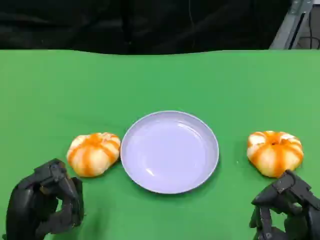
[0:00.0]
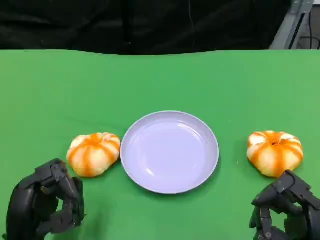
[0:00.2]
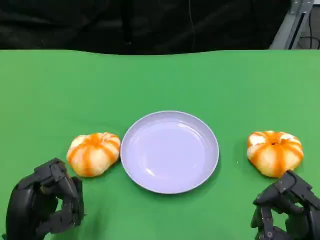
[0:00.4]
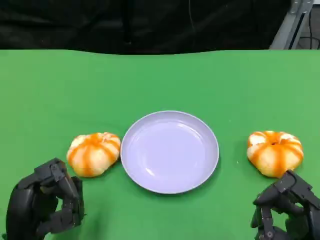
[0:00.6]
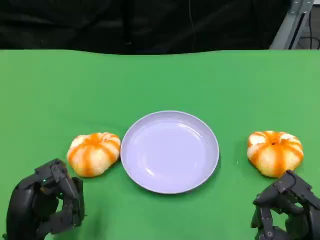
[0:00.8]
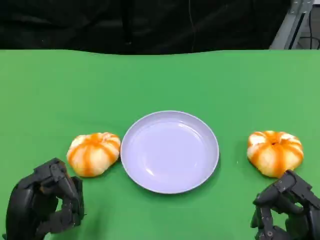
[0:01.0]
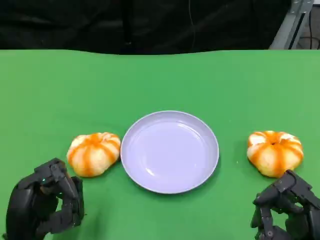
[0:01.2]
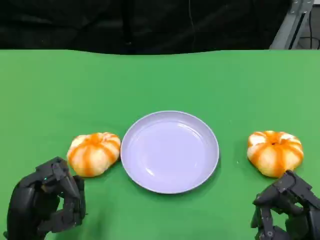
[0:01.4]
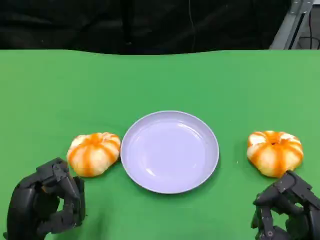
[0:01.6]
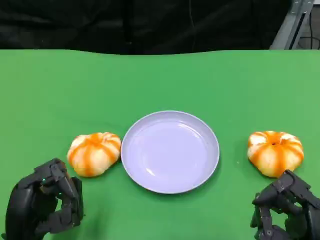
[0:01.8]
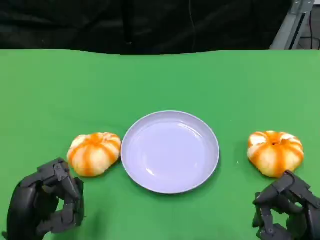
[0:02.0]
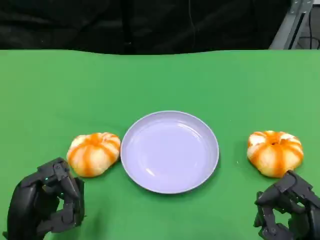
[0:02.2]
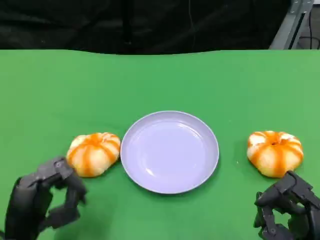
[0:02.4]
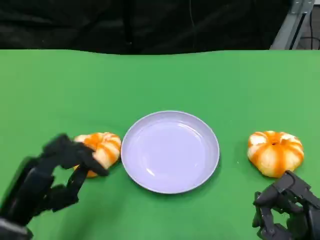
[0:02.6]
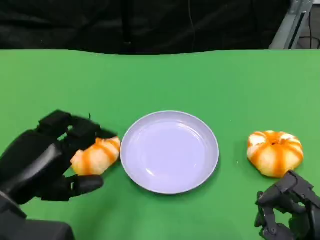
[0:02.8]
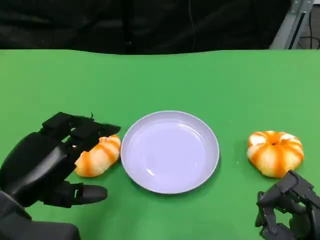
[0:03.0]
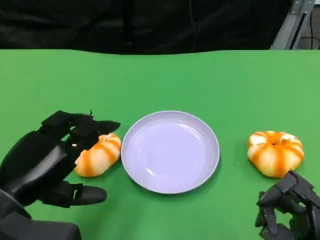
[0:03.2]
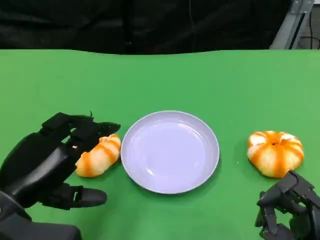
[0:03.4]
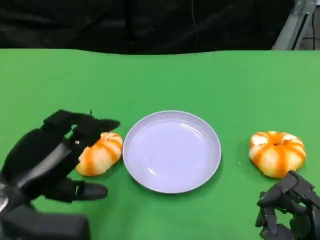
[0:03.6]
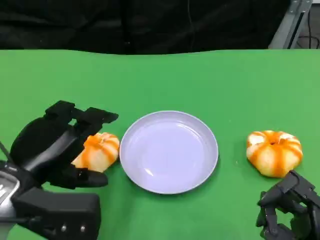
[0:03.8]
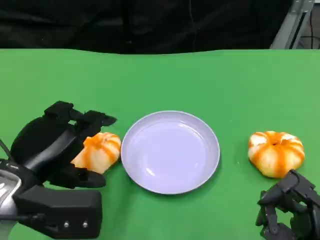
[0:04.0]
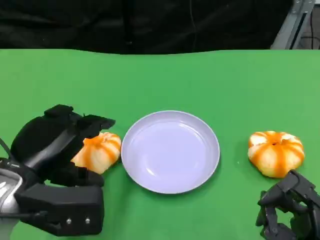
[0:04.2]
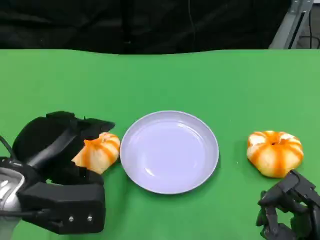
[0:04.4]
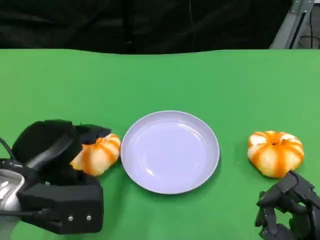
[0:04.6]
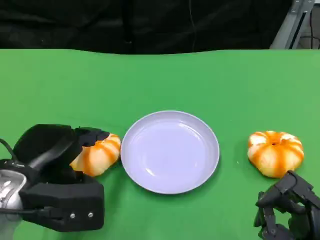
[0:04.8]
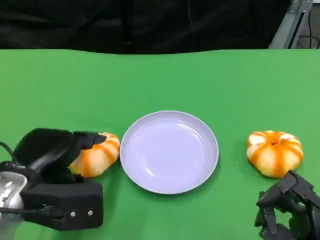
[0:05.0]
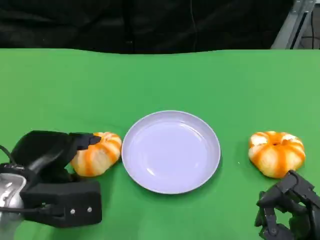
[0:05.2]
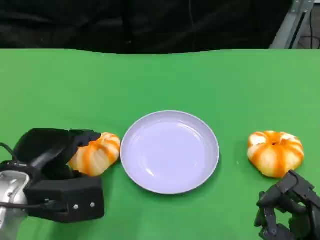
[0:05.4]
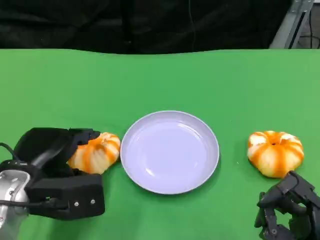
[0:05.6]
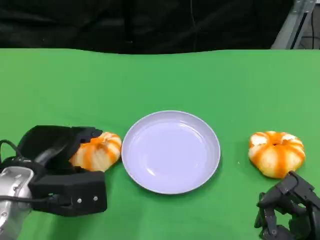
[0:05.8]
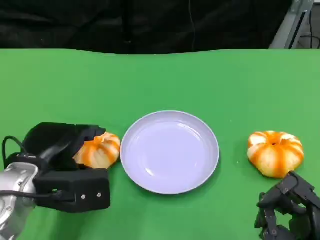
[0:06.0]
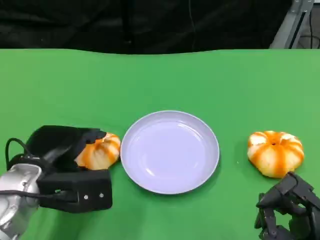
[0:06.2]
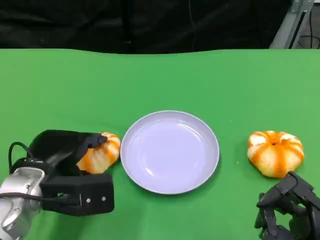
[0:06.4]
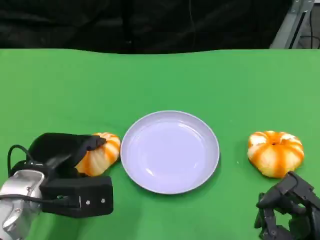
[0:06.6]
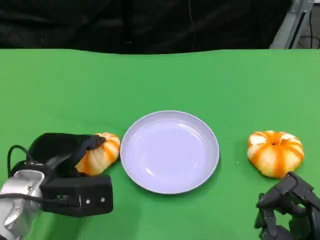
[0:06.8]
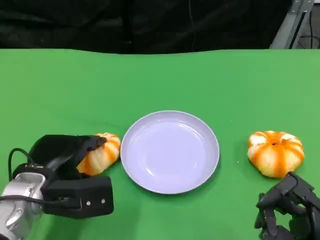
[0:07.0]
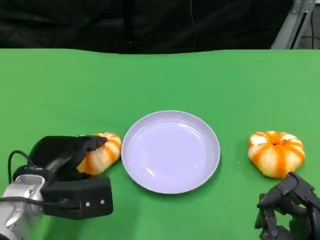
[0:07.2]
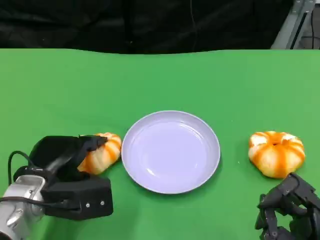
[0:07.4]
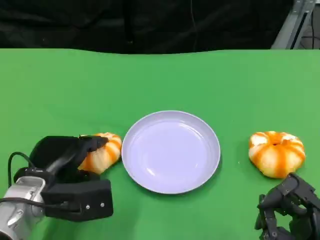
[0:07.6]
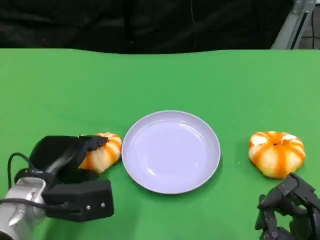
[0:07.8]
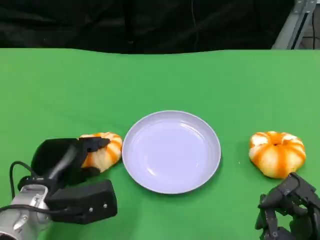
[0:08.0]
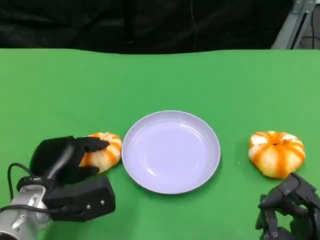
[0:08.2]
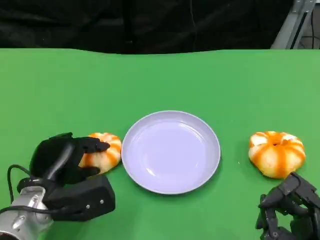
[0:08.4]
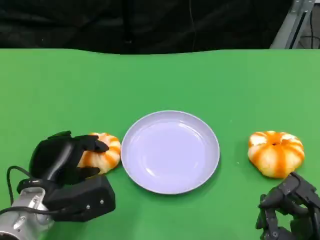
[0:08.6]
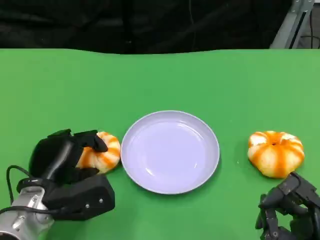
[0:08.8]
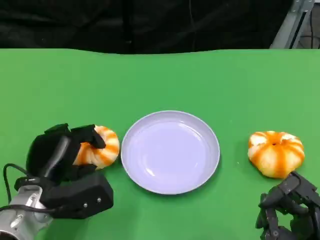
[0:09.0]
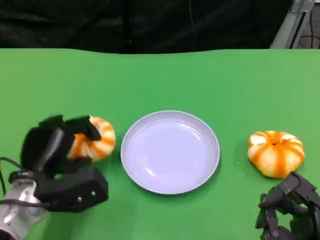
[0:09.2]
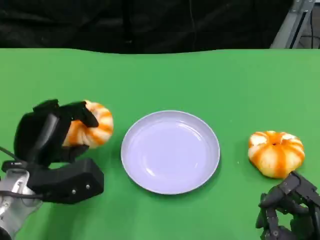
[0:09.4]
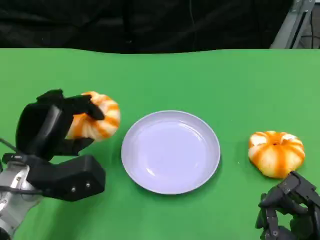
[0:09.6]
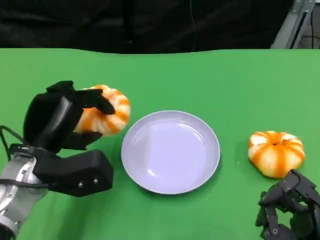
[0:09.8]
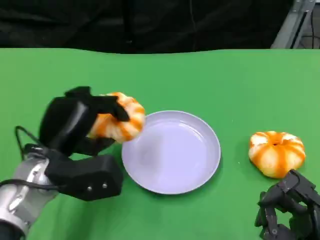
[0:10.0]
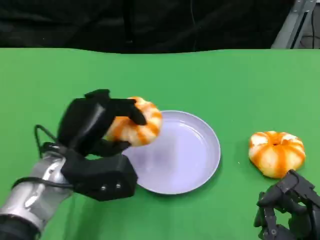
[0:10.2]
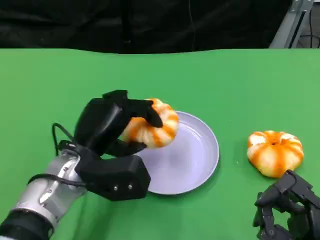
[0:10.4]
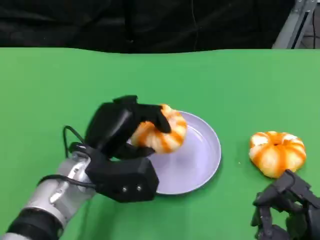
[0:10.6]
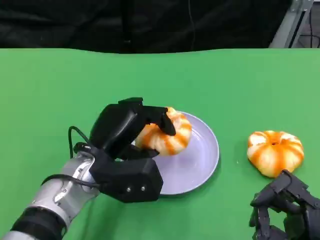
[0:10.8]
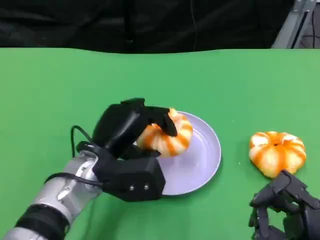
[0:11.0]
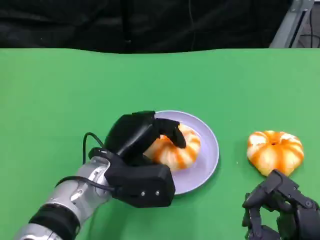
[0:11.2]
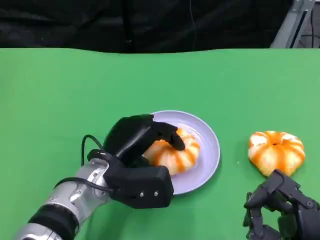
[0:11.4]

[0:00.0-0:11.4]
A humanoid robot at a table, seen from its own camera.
Task of the whole recording: Grasp the bread from the table and place it into the plate.
0:00.0 to 0:01.4: Neither hand changes place.
0:01.4 to 0:02.8: The left hand is displaced upward by roughly 10 cm.
0:02.8 to 0:04.2: The hands move only a little.
0:04.2 to 0:05.6: There are only small adjustments of the hands.
0:05.6 to 0:07.2: The hands stay close to where they were, moving slightly.
0:07.2 to 0:08.6: The hands move only a little.
0:08.6 to 0:10.0: The left hand heads upward, covering approximately 5 cm.
0:10.0 to 0:11.4: The left hand moves to the right, about 5 cm.

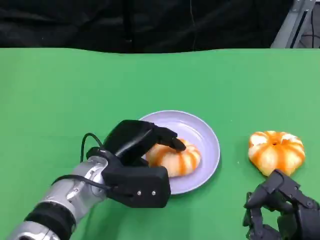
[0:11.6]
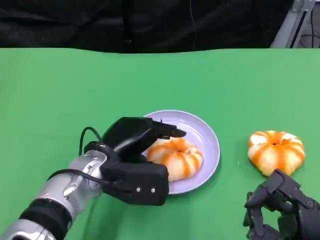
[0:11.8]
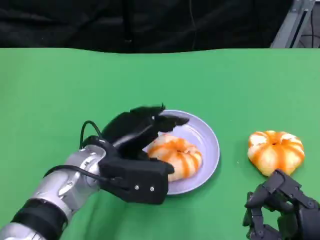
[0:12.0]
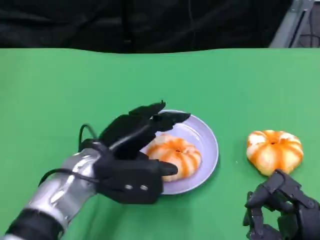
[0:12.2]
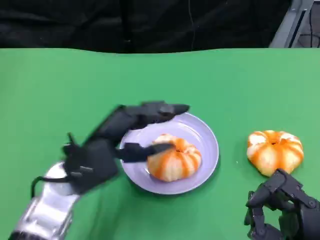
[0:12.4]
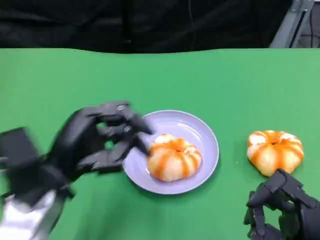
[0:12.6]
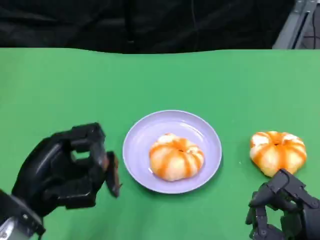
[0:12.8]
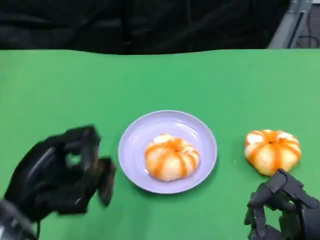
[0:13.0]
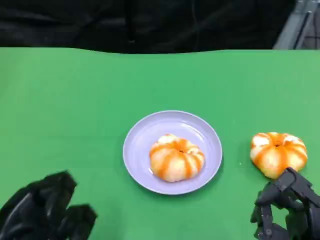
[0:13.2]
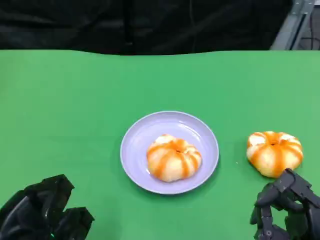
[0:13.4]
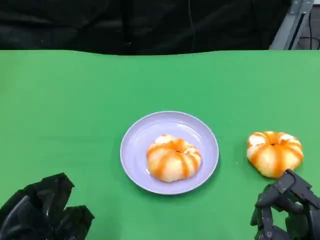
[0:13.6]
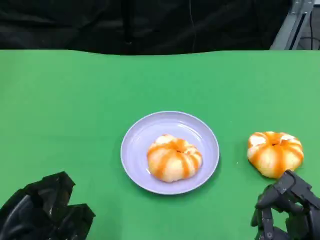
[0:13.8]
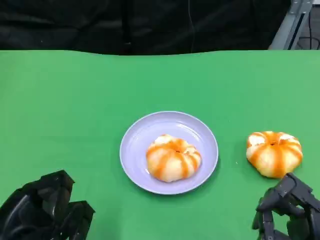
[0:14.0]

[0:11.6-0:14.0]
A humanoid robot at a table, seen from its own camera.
Task of the whole recording: Grasp the bread from the table and place it into the plate.
0:11.6 to 0:12.8: The left hand is displaced to the left and backward by some 15 cm.
0:12.8 to 0:14.0: The left hand travels downward by some 5 cm.

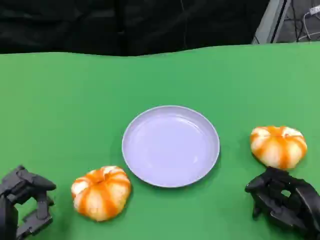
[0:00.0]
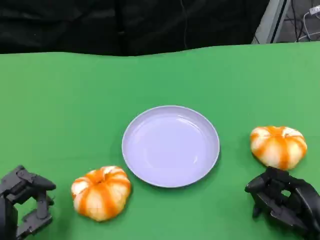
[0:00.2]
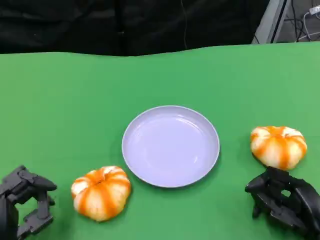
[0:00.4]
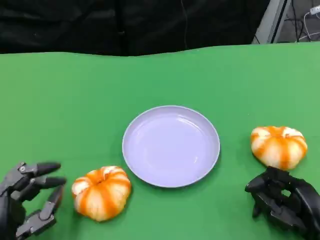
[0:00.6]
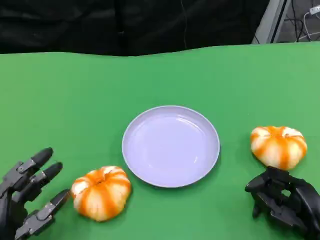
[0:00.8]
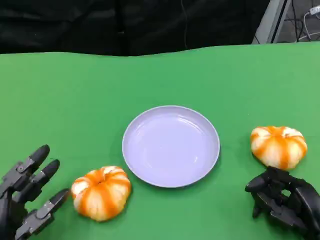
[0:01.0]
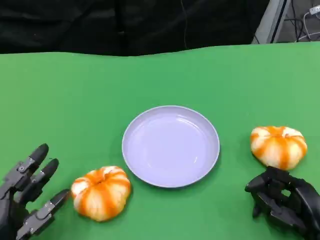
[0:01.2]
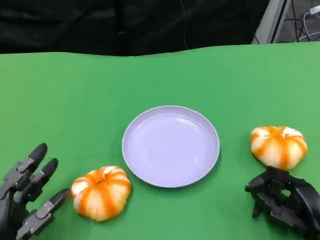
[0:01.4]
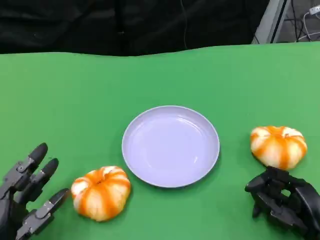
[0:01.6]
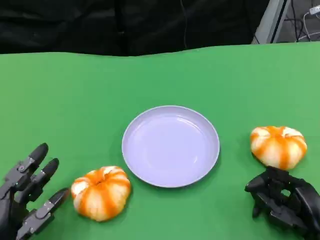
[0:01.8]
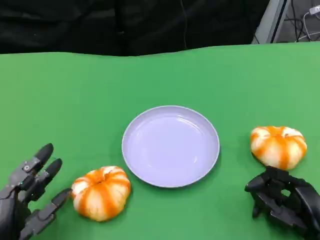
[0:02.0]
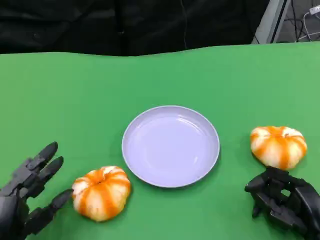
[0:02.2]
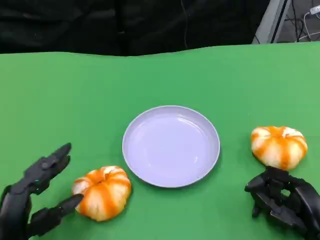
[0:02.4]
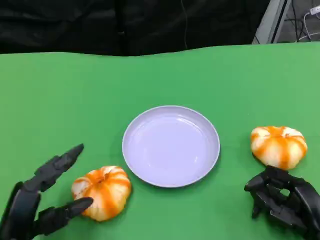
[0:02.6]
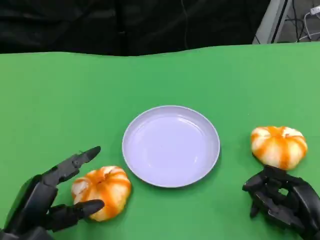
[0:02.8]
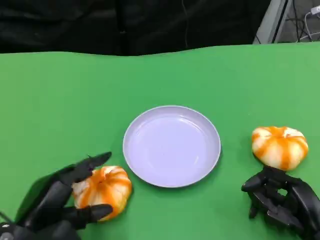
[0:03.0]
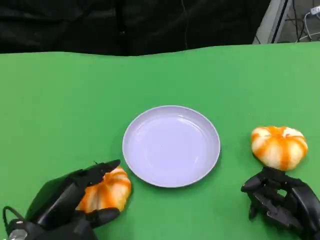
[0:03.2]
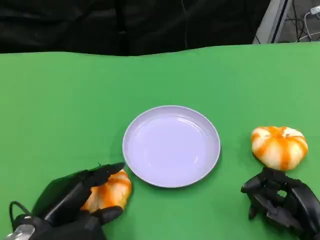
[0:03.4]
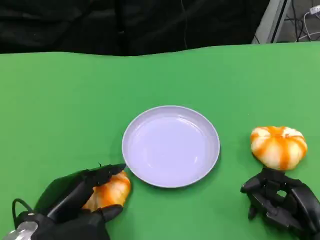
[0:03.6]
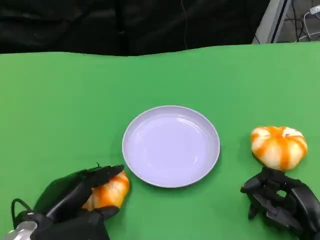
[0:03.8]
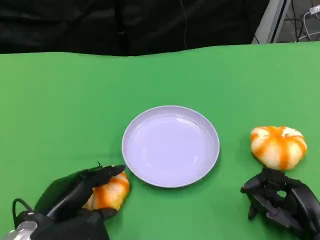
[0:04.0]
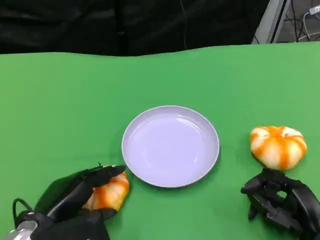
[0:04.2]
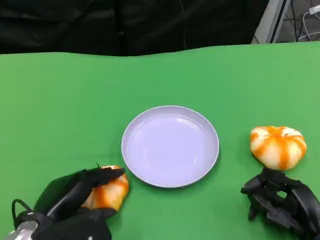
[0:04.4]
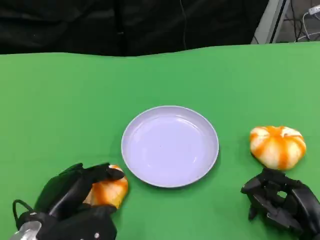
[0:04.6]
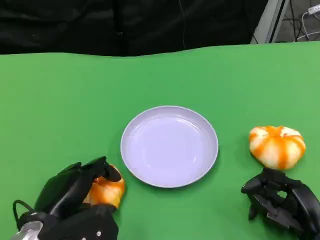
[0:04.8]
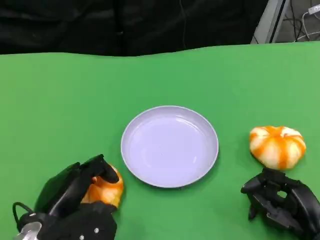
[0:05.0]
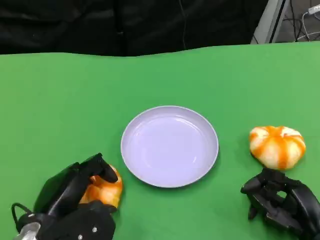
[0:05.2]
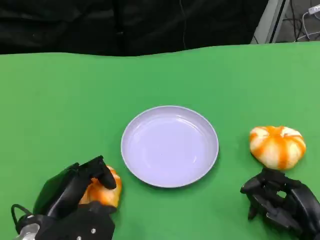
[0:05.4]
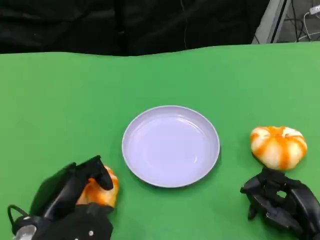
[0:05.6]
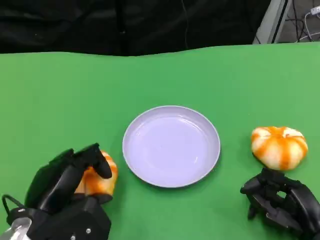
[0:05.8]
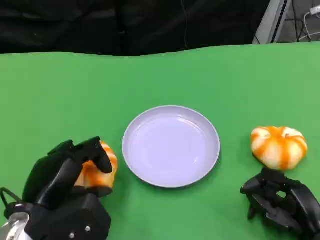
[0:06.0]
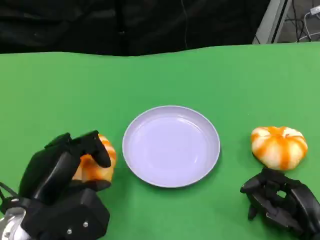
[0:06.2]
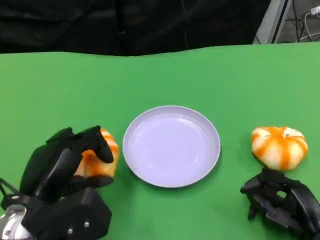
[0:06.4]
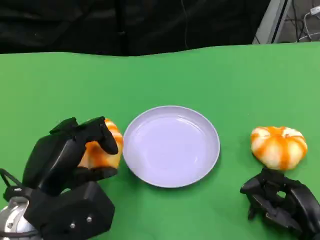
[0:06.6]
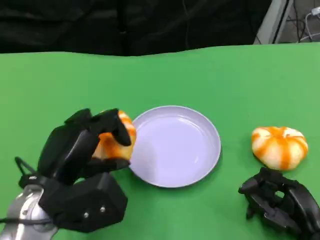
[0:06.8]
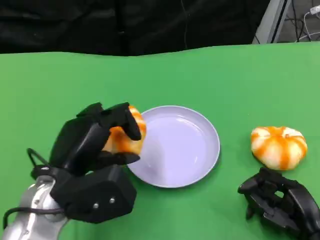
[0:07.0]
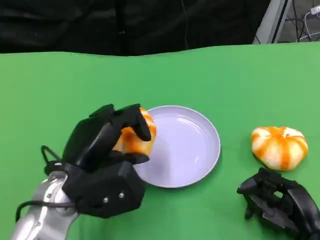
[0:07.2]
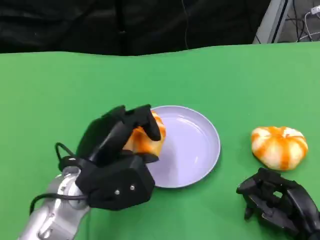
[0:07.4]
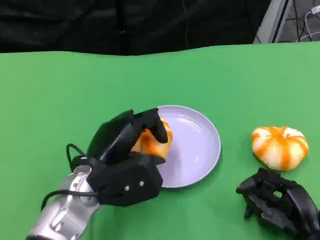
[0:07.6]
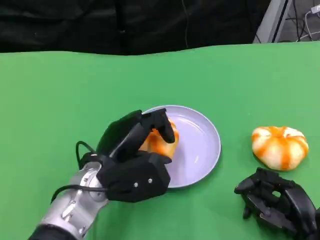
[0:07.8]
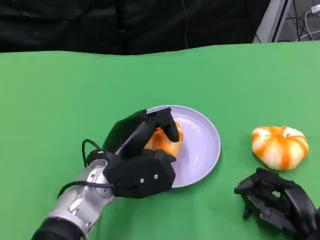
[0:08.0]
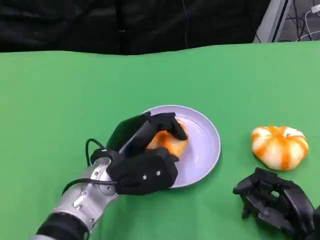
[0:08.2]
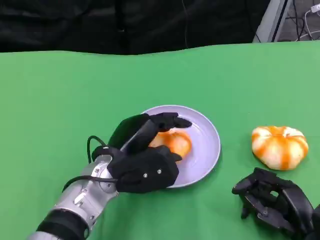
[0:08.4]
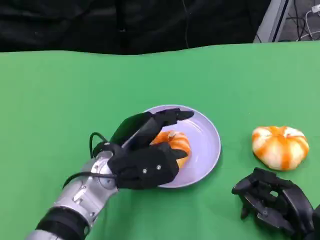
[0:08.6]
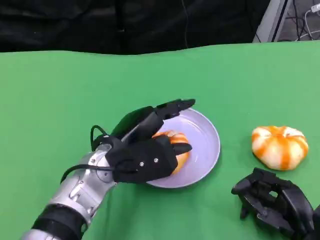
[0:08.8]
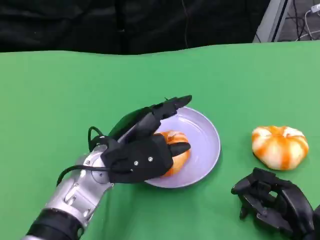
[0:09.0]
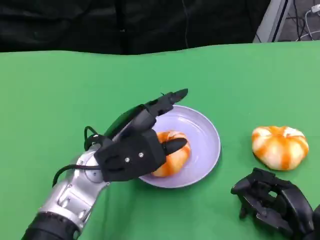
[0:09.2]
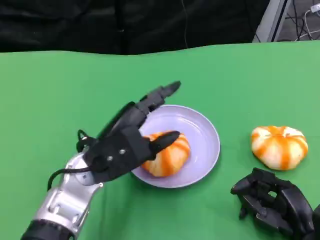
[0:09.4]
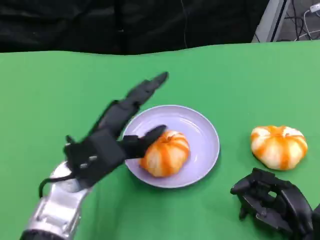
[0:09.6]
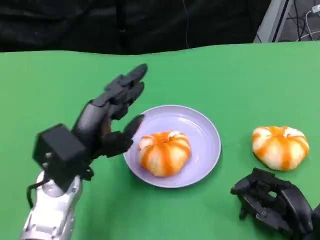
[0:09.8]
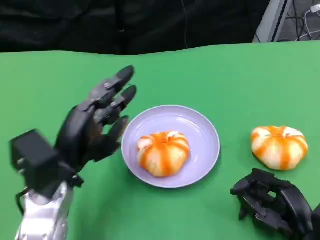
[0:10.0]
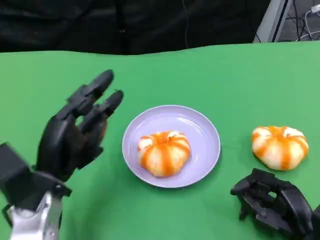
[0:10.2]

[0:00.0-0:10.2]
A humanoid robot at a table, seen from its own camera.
Task of the whole recording: Grasp the bread from the table and place it into the plate.
0:00.0 to 0:01.4: There are only small adjustments of the hands.
0:01.4 to 0:03.0: The left hand shifts by roughly 5 cm.
0:03.0 to 0:05.8: The hands stay close to where they were, moving slightly.
0:05.8 to 0:07.2: The left hand travels to the right by some 5 cm.
0:07.2 to 0:08.8: The left hand ends up about 5 cm from where it was.
0:08.8 to 0:10.2: The left hand is displaced to the left by about 10 cm.
